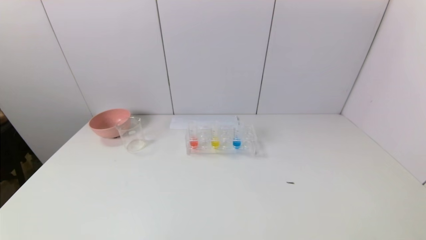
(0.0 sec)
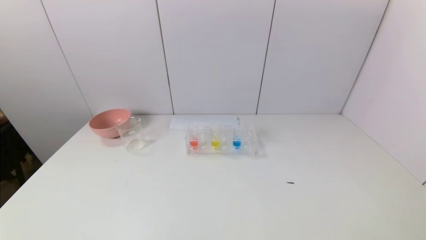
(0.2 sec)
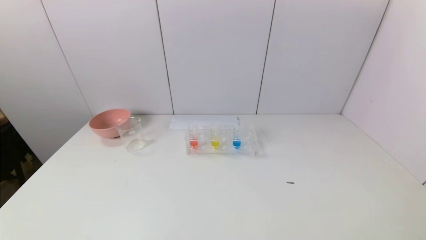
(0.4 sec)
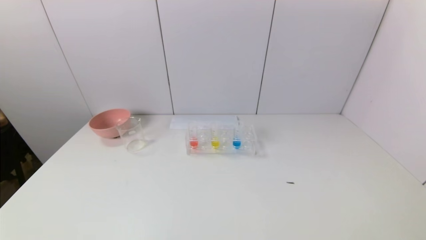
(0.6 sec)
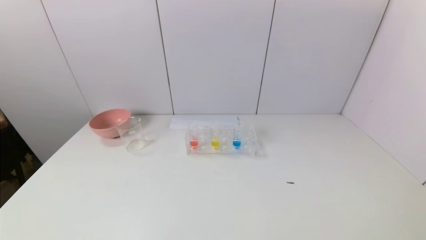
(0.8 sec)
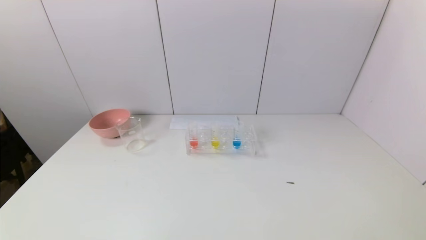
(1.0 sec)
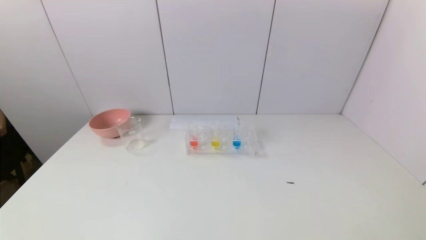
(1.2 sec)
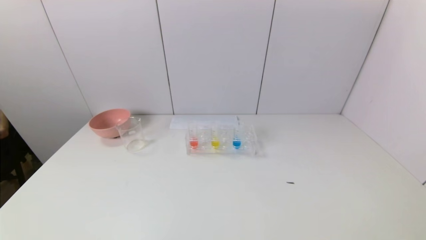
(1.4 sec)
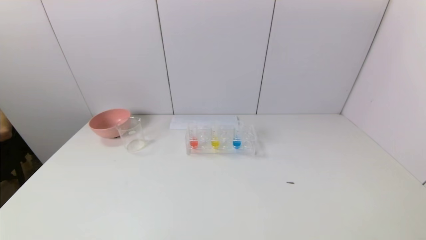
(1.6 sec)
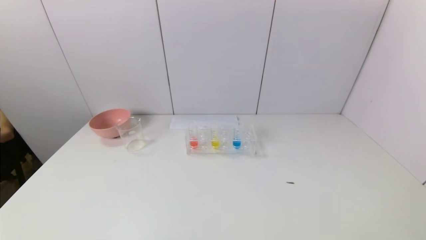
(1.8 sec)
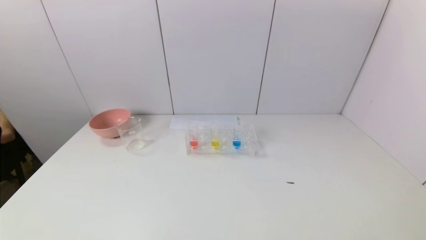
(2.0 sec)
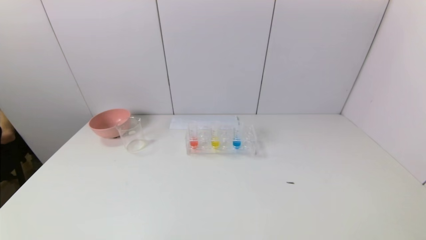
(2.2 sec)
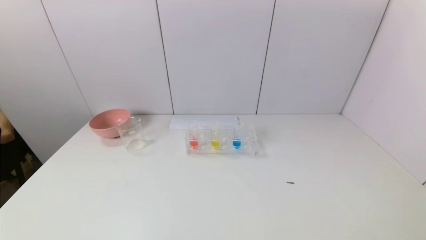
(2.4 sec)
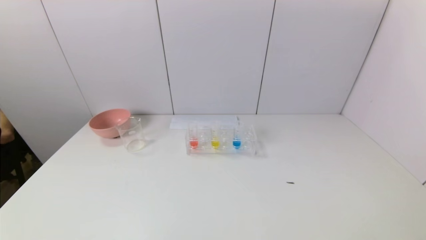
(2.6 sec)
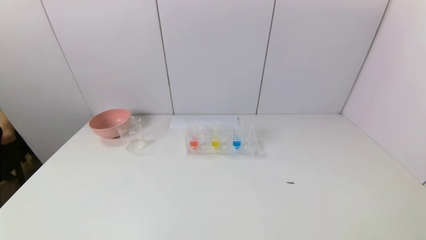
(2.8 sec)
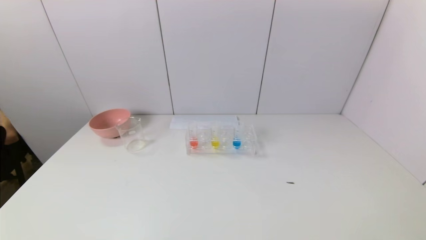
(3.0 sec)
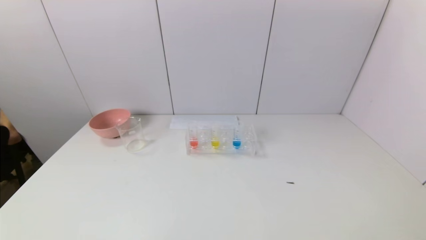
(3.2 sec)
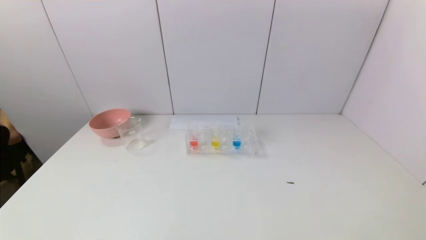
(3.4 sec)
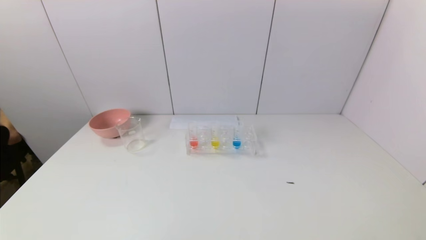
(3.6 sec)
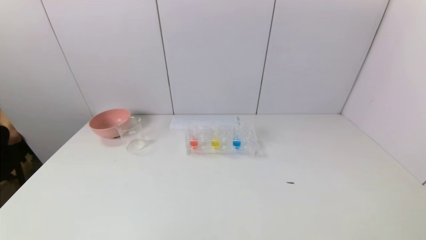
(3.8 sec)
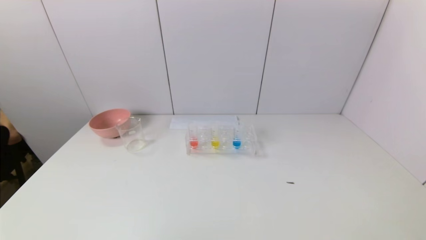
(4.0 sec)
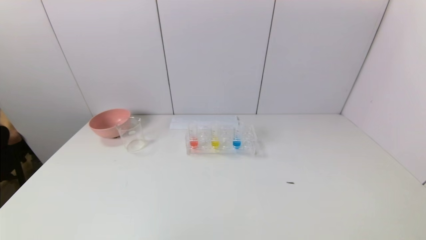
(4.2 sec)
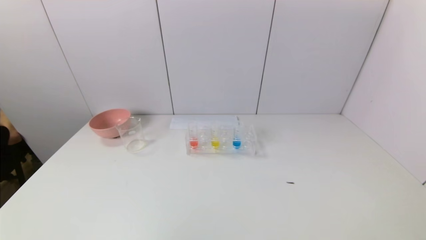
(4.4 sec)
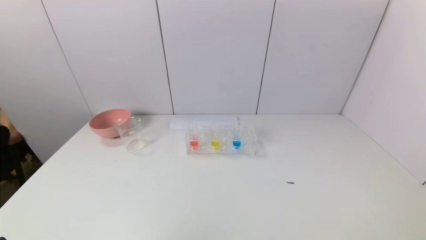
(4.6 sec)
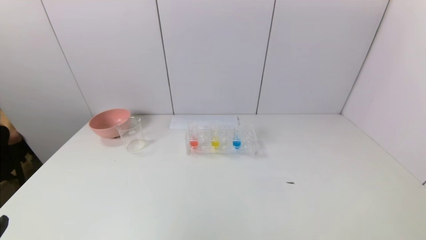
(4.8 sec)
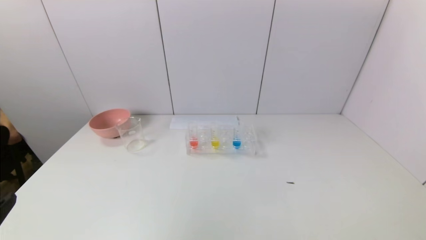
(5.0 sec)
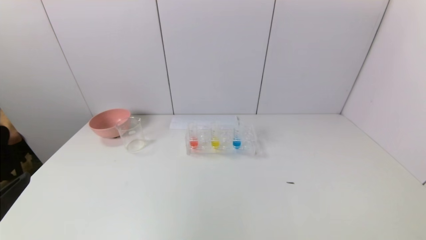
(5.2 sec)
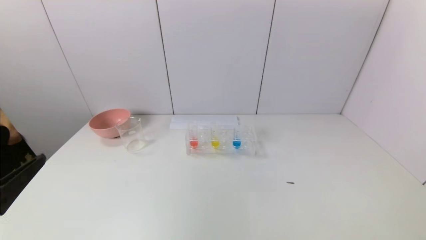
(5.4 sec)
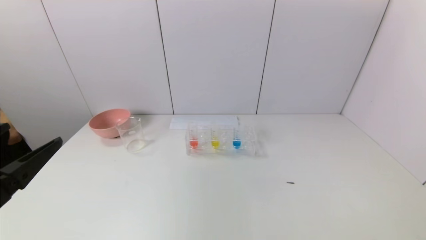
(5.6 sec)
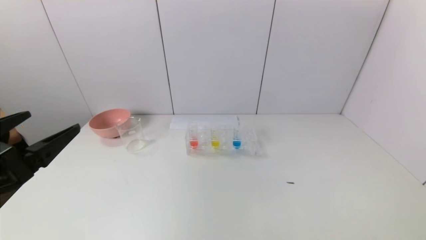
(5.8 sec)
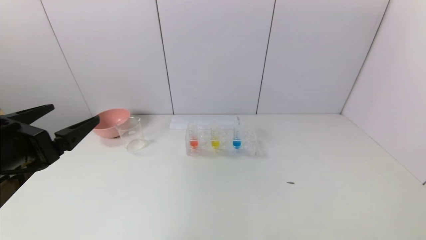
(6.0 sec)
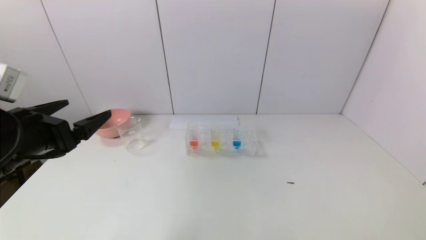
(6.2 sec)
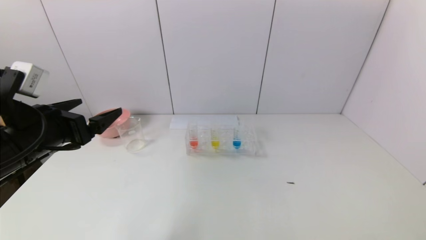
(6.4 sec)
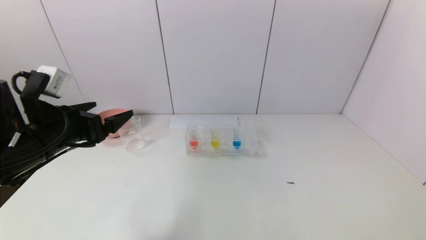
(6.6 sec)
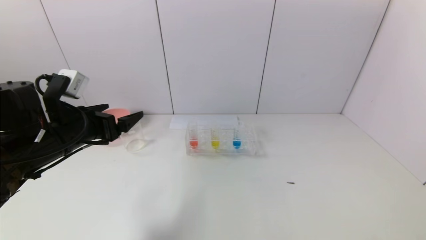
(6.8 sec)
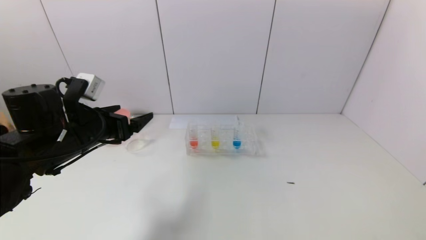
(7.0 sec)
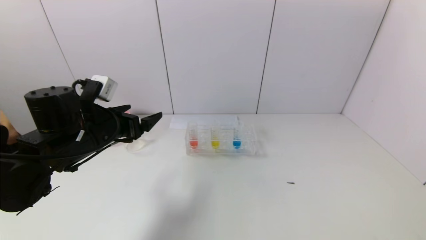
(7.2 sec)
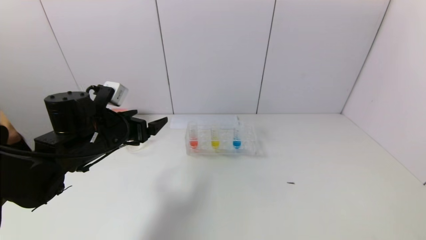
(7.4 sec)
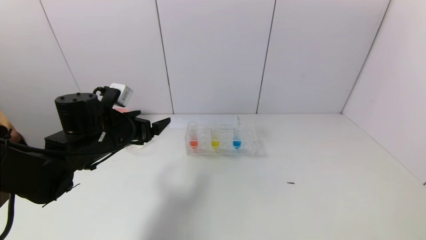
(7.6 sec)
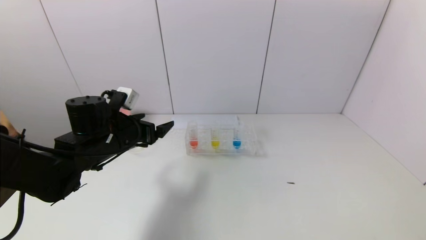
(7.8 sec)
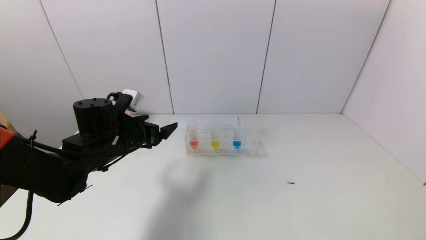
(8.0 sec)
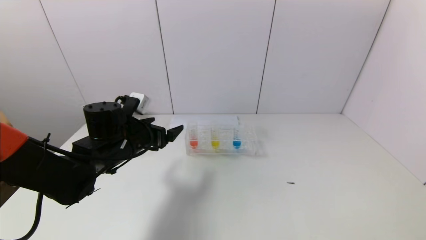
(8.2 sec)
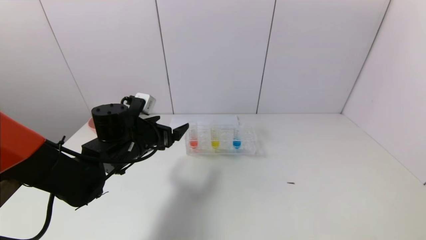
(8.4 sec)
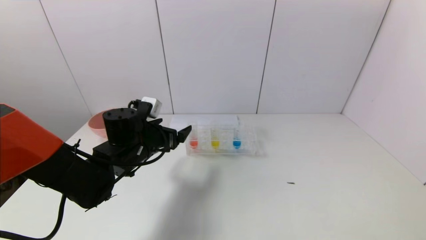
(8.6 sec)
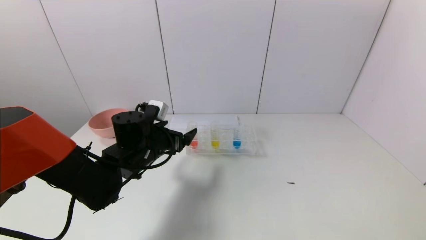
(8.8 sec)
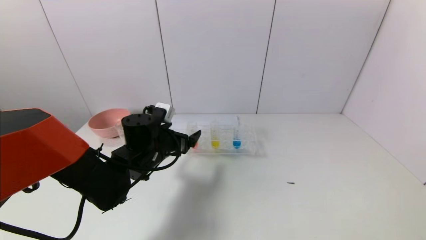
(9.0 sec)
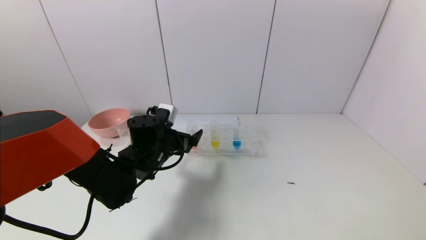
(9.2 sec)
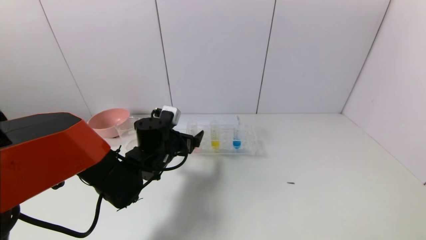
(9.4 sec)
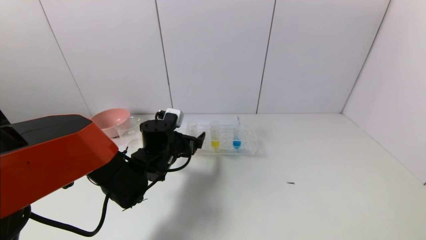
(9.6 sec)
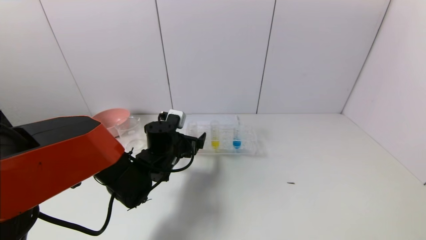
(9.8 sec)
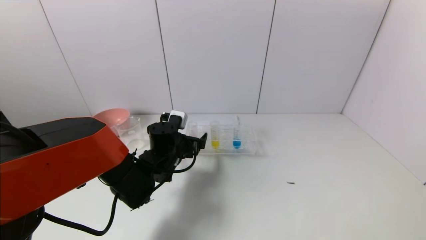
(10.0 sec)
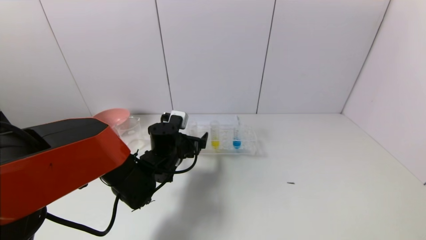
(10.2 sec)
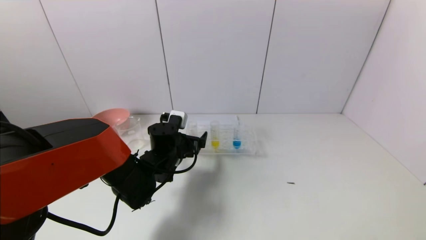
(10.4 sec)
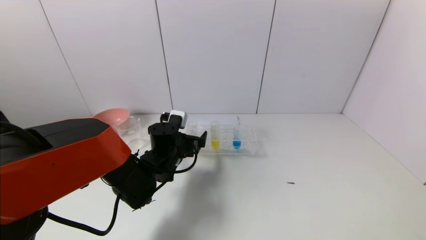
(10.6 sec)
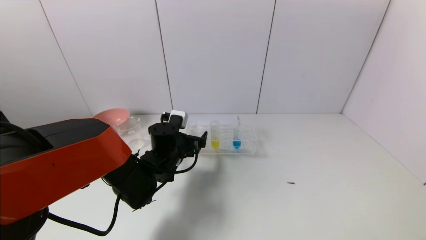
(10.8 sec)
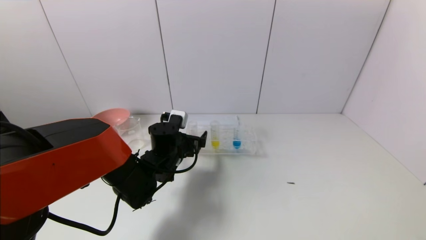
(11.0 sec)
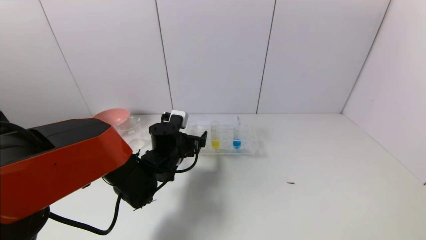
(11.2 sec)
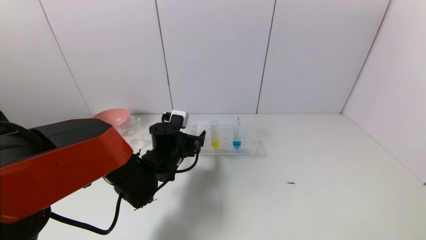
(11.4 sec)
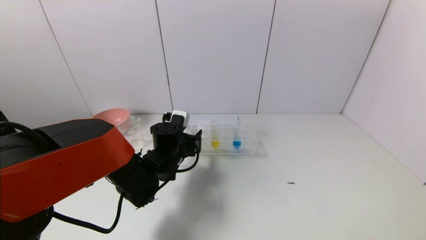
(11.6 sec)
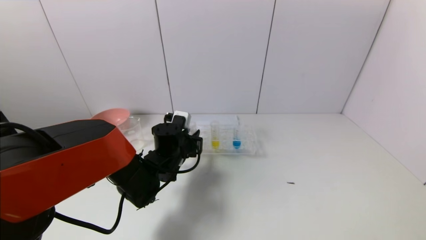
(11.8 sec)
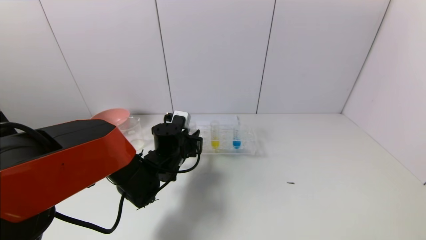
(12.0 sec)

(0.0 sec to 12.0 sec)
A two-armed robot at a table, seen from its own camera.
Task of the whole recording: pick up the test tube with yellow pigment and the test tube with red pigment by grippers and pour them into the beaker.
0.0 sec - 3.0 sec: Both grippers stay put.
4.4 sec - 6.0 sec: The left gripper heads forward and upward, covering approximately 20 cm.
6.0 sec - 7.6 sec: The left gripper shifts some 15 cm forward, to the right and downward.
7.6 sec - 9.0 sec: The left gripper travels to the right and downward by some 10 cm.
9.0 sec - 10.4 sec: The left gripper moves some 5 cm.
10.4 sec - 12.0 sec: The left gripper closes up.

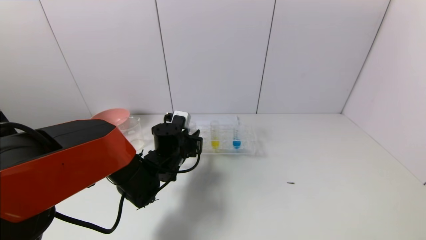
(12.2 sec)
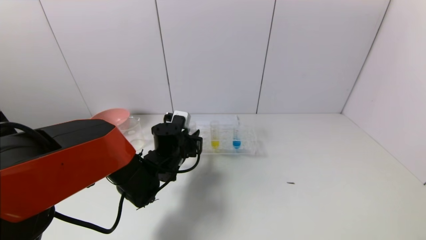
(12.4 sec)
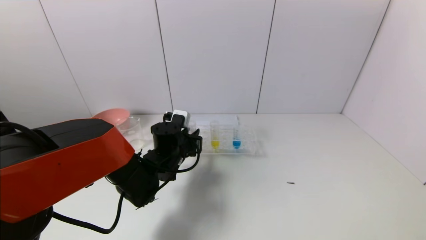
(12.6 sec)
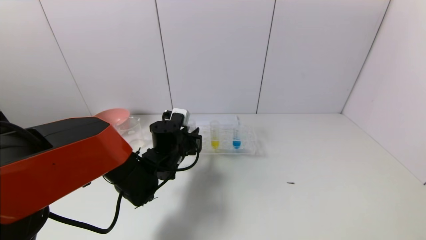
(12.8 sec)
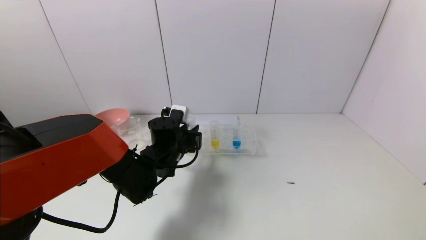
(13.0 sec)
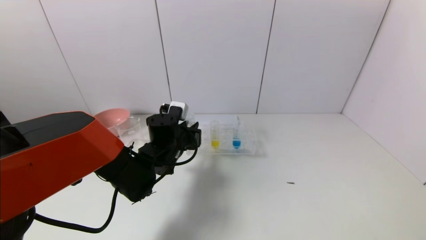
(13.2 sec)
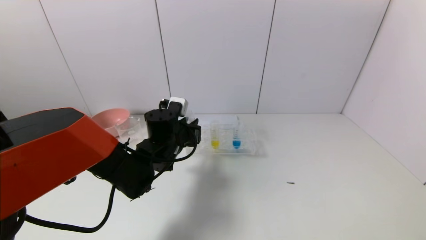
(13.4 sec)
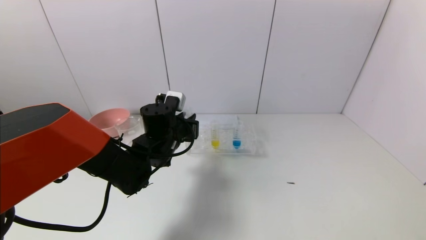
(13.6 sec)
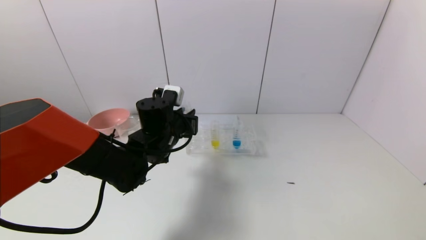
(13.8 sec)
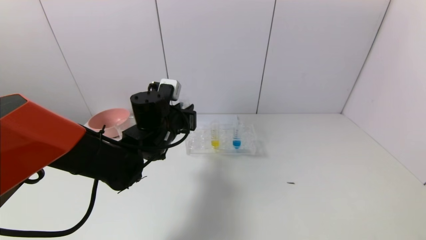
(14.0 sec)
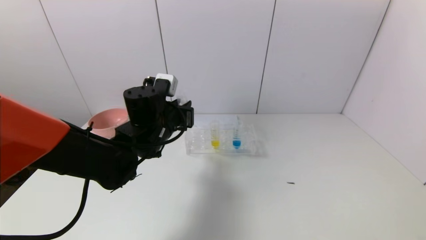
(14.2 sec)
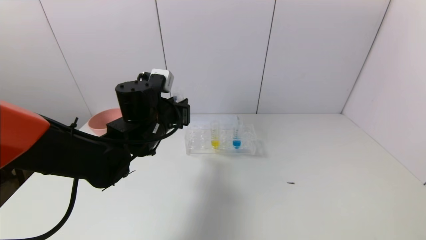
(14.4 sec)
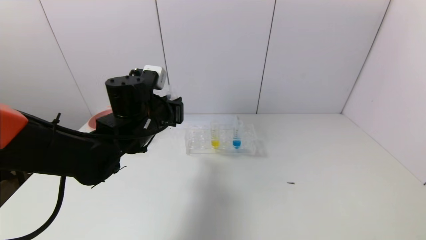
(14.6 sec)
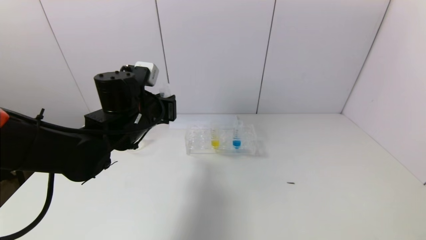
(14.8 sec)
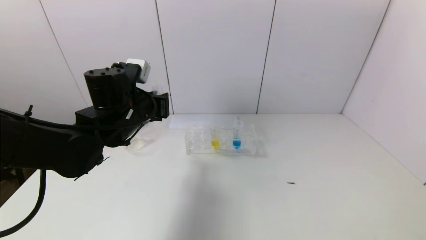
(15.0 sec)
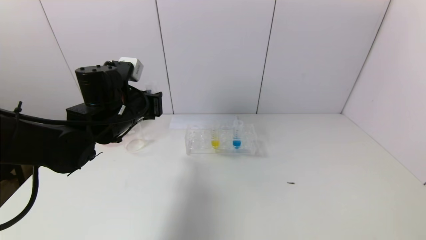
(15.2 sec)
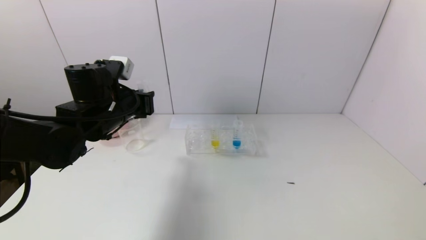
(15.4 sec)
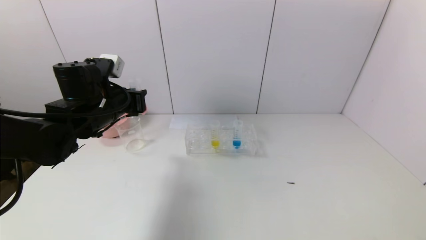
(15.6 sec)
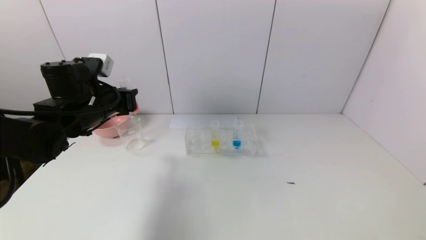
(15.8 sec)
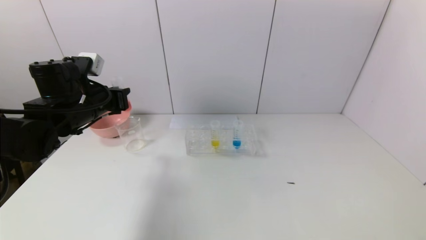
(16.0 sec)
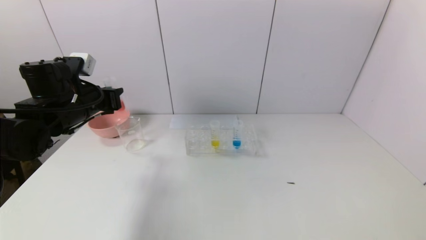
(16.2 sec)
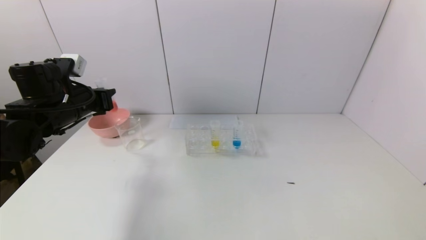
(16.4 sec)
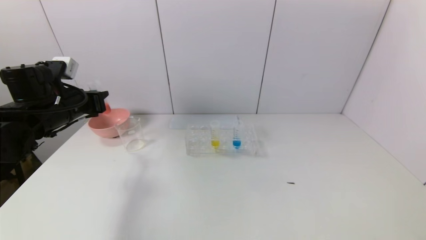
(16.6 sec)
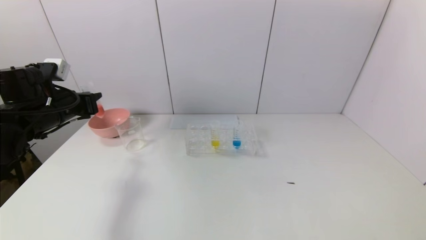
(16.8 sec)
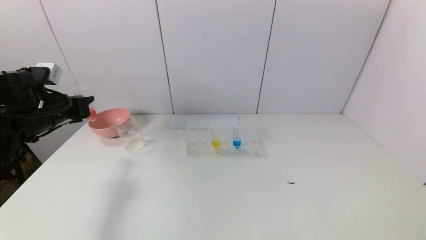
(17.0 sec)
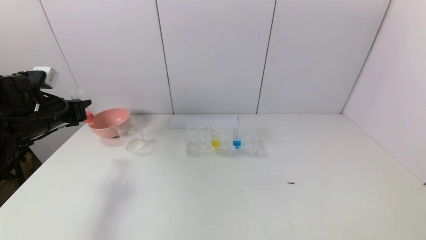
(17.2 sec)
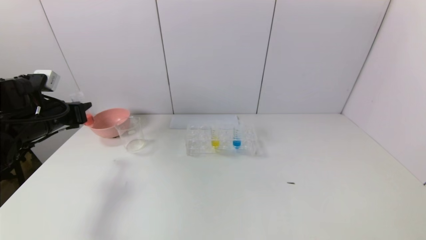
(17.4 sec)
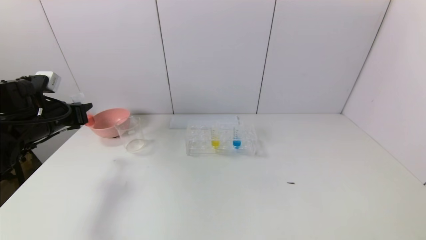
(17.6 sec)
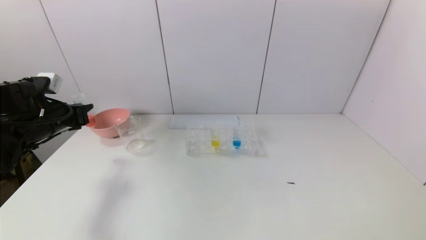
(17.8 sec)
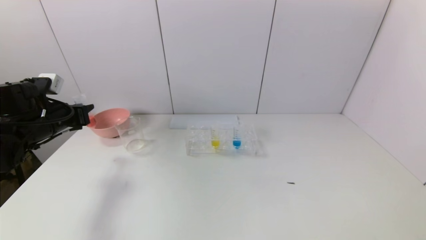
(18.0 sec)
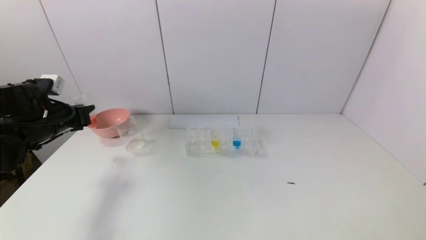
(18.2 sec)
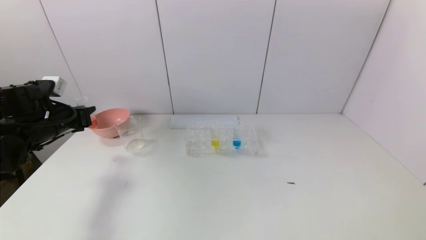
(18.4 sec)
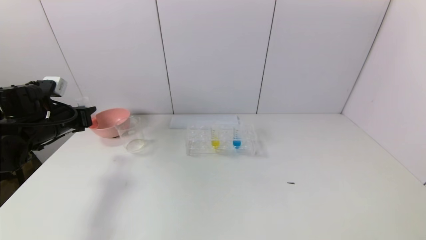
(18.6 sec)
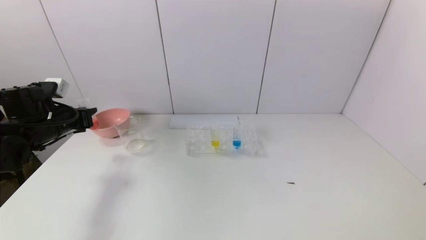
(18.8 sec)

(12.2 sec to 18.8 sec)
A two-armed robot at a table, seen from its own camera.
Task of the whole recording: pick up the test tube with yellow pigment and the test tube with red pigment by grippers and pour them into the beaker.
12.2 sec - 13.8 sec: The left gripper travels upward by some 5 cm.
13.8 sec - 15.4 sec: The left gripper goes approximately 10 cm to the left and upward.
15.4 sec - 17.2 sec: The left gripper goes some 15 cm to the left.
17.2 sec - 18.8 sec: The grippers move only a little.
